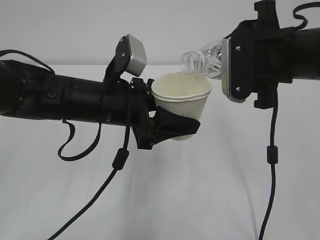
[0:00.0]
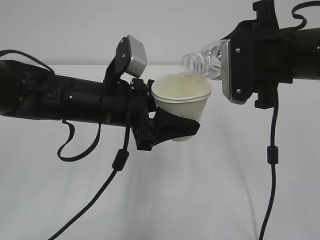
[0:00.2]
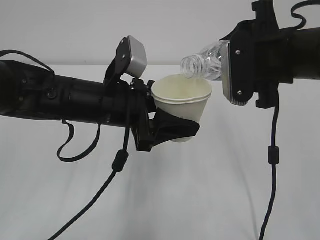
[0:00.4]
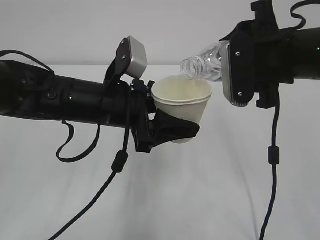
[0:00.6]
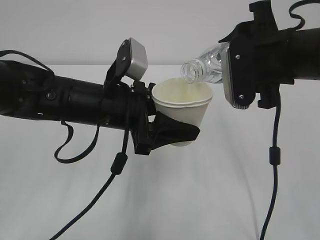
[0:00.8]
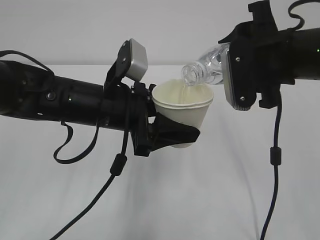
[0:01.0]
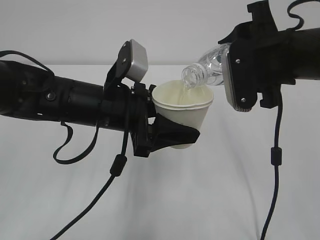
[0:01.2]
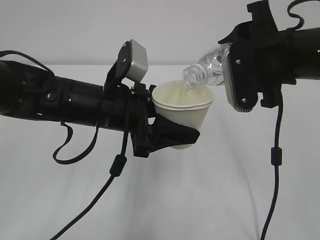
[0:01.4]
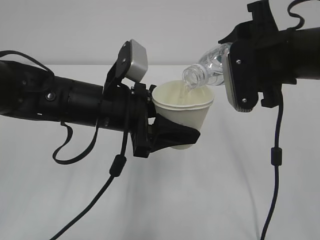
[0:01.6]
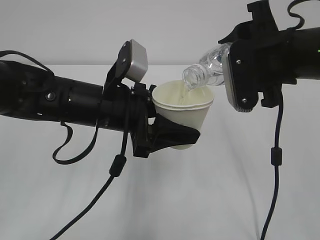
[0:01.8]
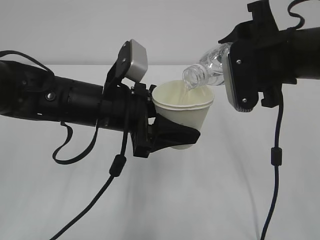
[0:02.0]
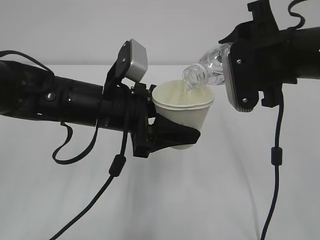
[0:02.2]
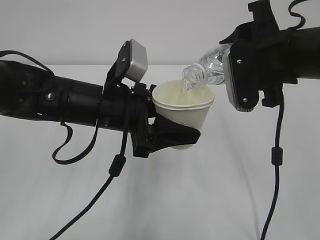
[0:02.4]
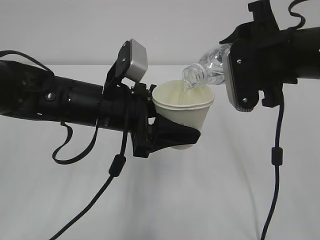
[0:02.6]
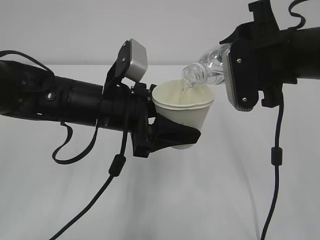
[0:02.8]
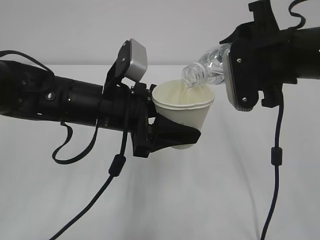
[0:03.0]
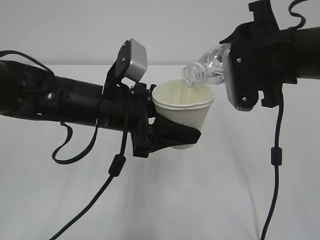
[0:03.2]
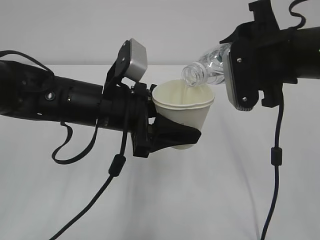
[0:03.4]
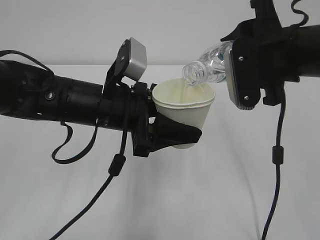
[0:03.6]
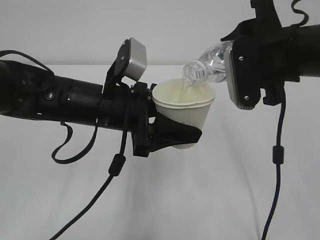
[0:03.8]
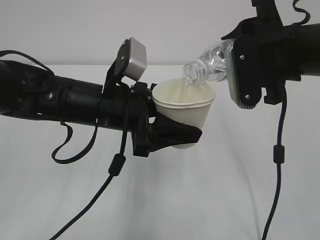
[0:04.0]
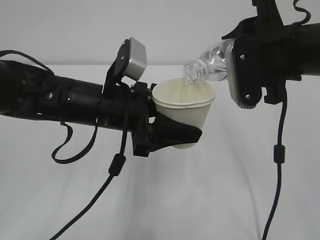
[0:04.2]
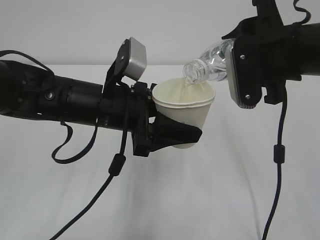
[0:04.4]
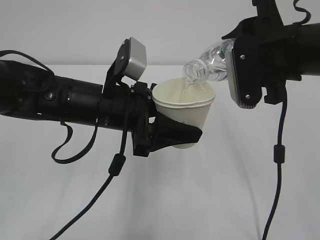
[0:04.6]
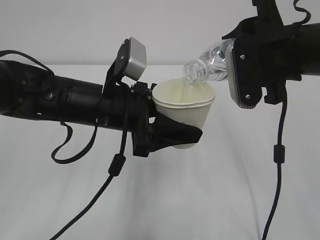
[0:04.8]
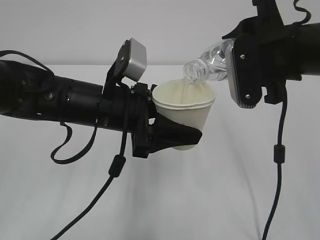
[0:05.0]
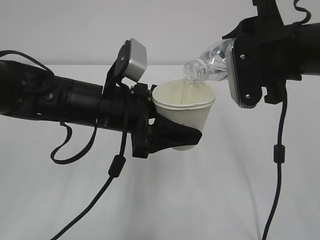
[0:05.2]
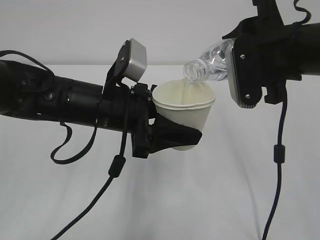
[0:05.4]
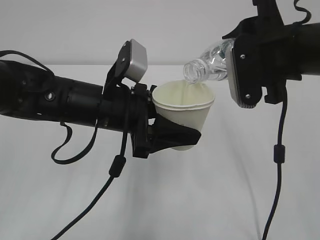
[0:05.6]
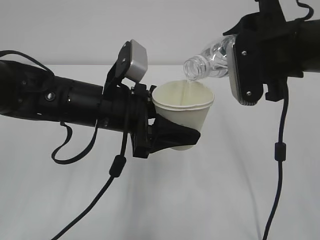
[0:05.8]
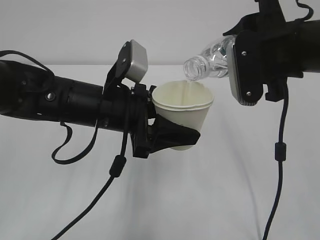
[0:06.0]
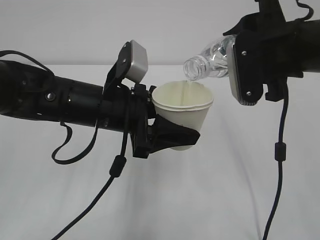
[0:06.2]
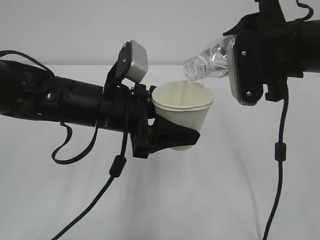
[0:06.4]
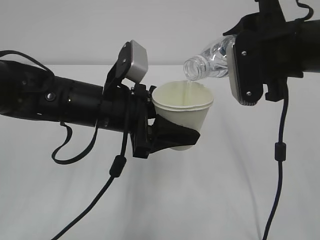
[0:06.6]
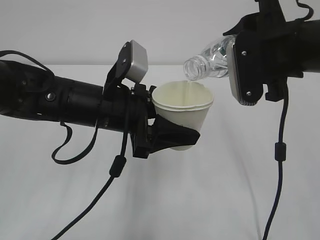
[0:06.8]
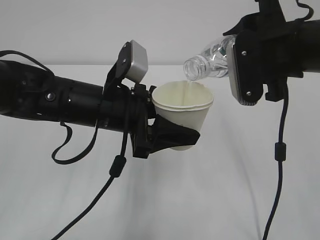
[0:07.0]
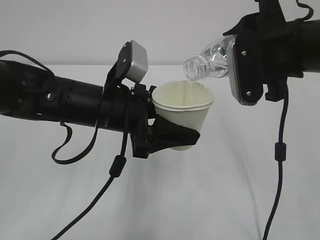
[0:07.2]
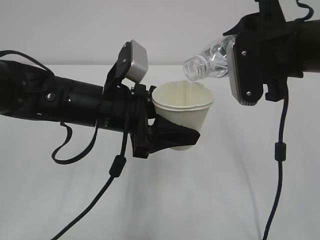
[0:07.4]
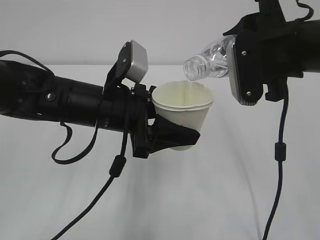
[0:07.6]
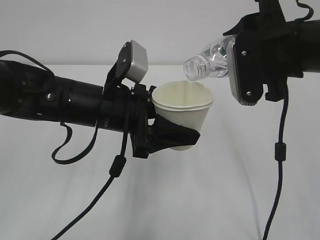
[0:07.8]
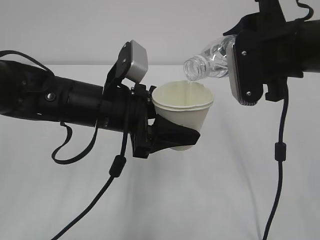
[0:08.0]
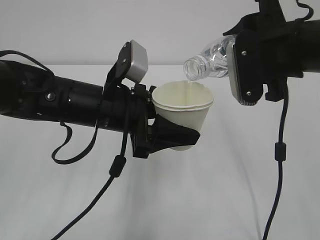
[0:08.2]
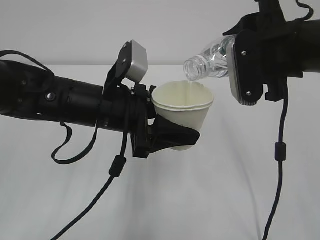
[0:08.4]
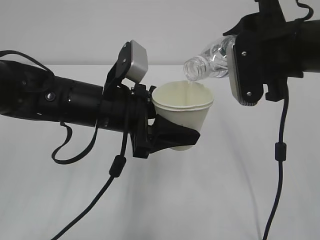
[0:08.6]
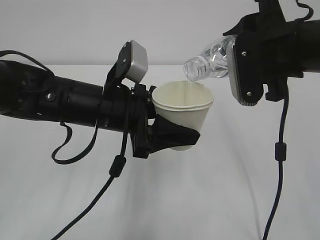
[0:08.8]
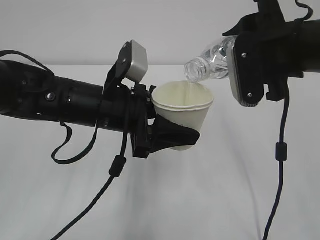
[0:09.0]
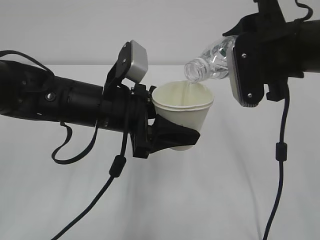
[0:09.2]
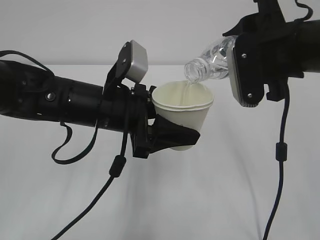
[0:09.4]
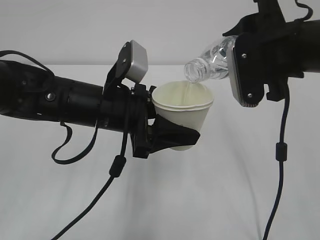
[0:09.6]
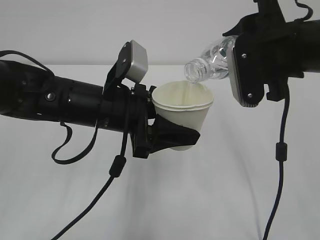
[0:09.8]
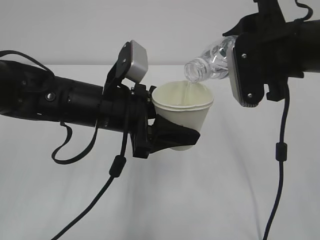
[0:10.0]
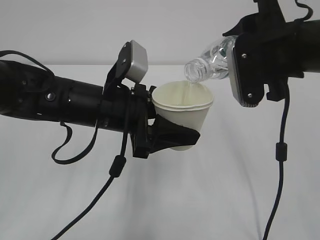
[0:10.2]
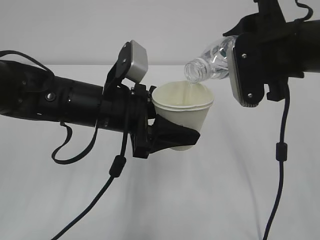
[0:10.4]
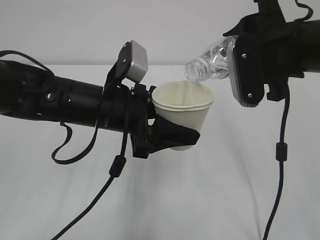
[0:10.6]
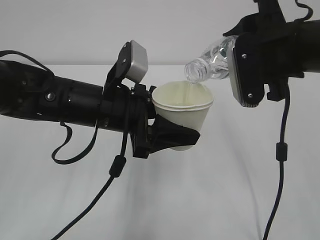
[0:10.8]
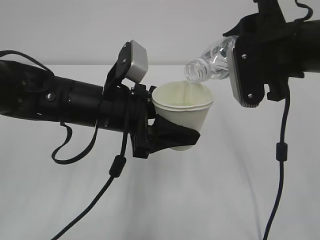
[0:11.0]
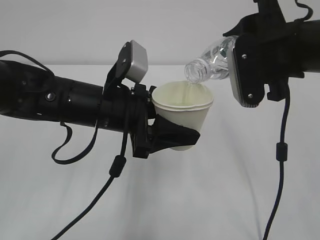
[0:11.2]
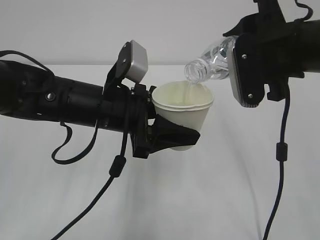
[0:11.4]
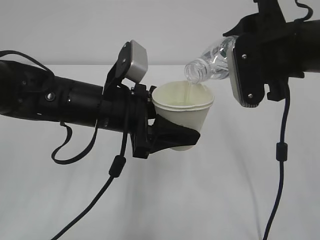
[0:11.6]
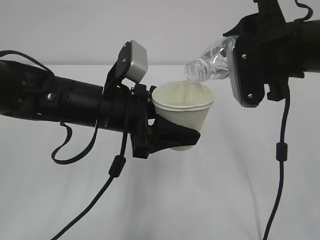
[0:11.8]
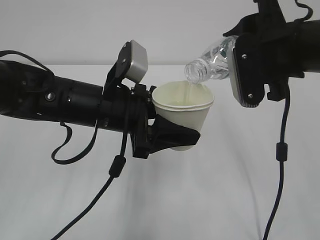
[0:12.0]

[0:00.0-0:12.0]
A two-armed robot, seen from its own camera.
0:00.0 to 0:01.6: The grippers make only small movements.
0:01.6 to 0:12.0: The two grippers keep their place.

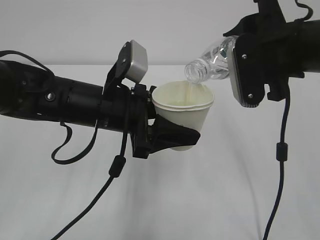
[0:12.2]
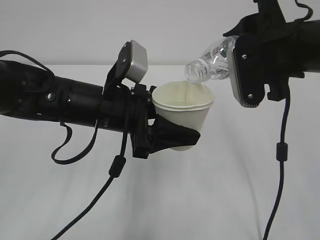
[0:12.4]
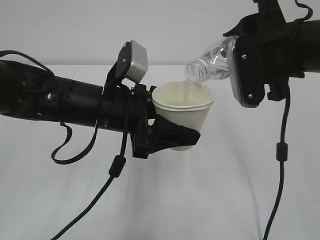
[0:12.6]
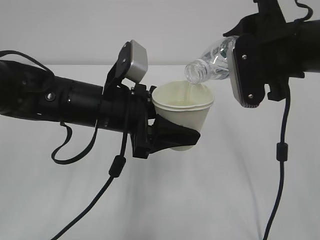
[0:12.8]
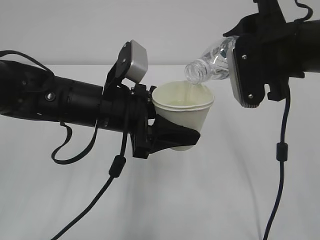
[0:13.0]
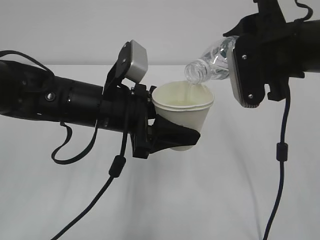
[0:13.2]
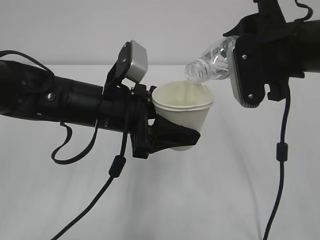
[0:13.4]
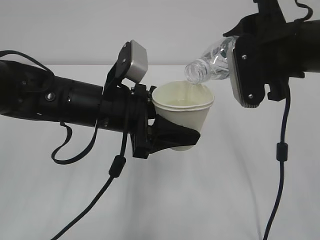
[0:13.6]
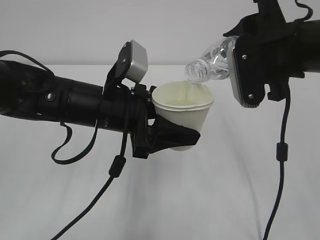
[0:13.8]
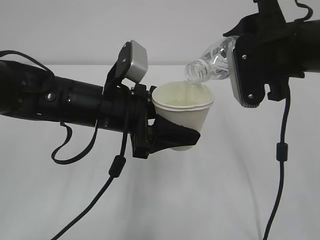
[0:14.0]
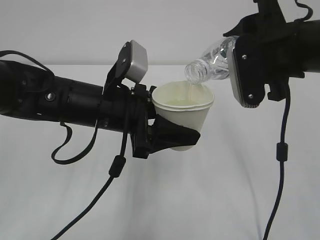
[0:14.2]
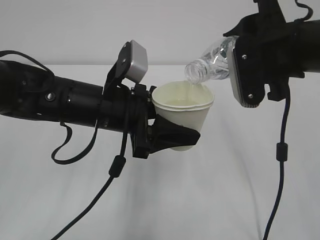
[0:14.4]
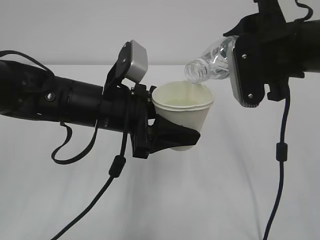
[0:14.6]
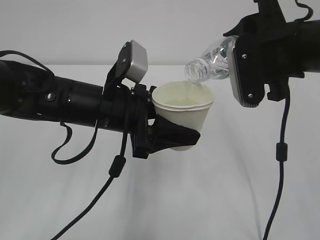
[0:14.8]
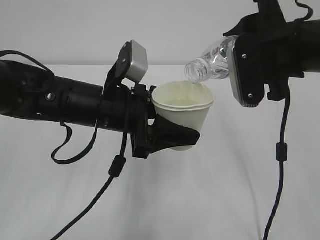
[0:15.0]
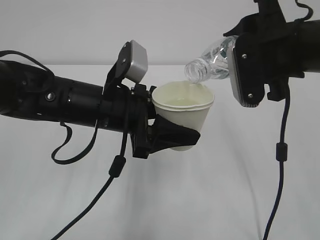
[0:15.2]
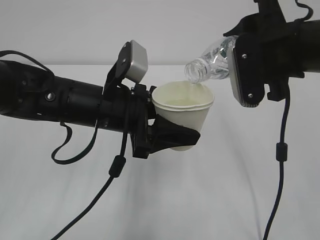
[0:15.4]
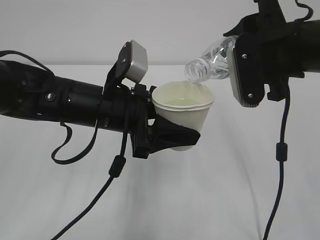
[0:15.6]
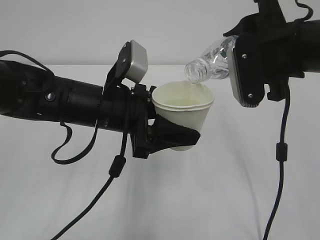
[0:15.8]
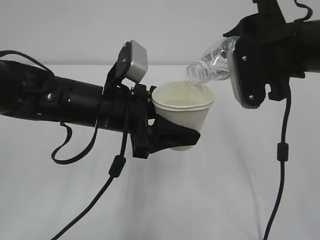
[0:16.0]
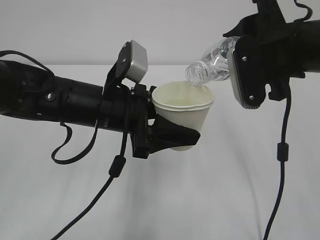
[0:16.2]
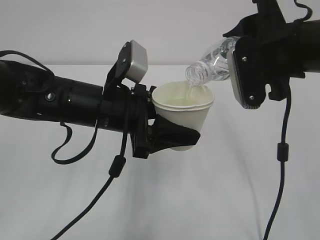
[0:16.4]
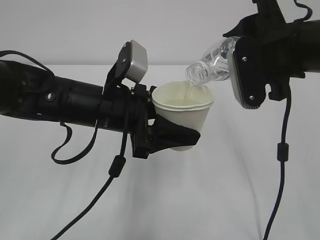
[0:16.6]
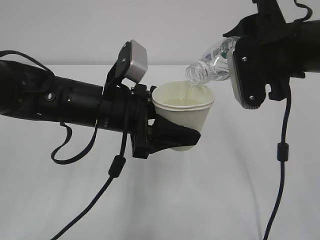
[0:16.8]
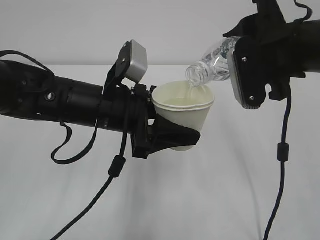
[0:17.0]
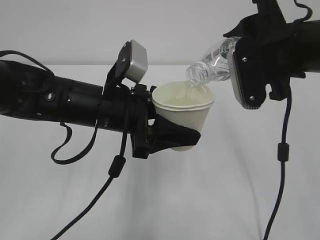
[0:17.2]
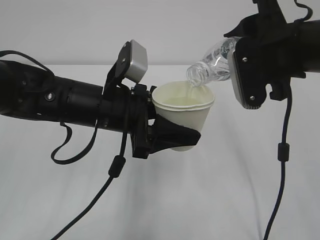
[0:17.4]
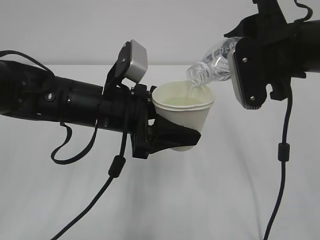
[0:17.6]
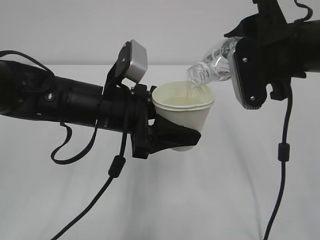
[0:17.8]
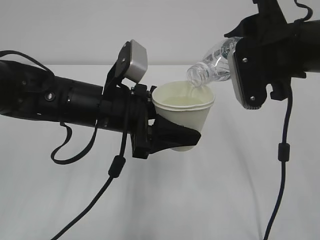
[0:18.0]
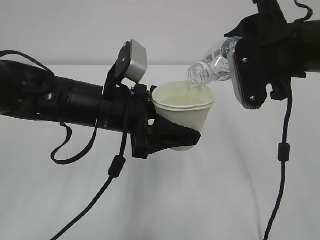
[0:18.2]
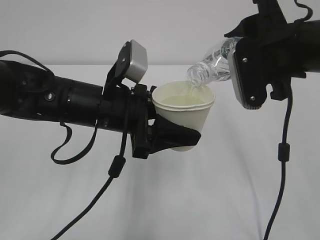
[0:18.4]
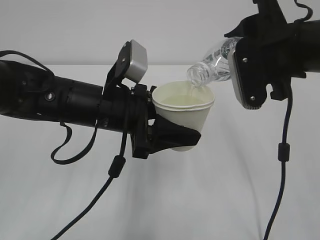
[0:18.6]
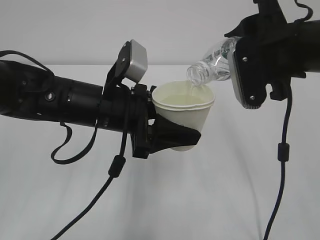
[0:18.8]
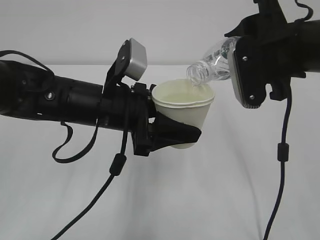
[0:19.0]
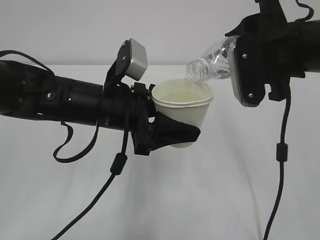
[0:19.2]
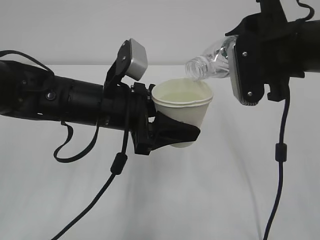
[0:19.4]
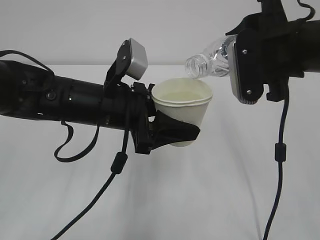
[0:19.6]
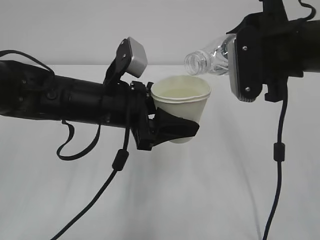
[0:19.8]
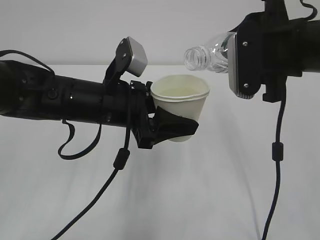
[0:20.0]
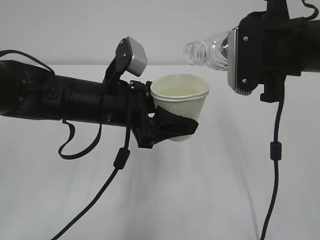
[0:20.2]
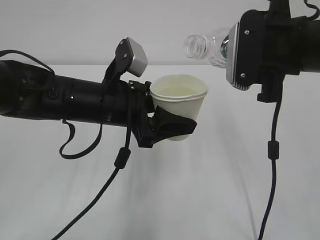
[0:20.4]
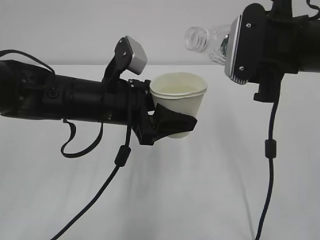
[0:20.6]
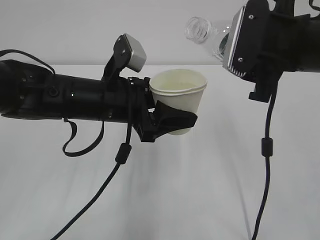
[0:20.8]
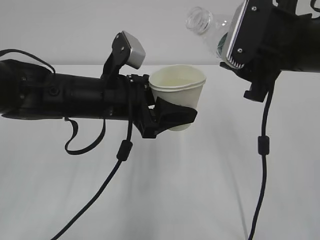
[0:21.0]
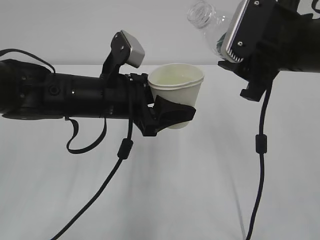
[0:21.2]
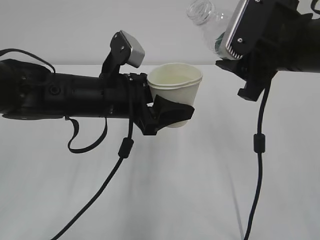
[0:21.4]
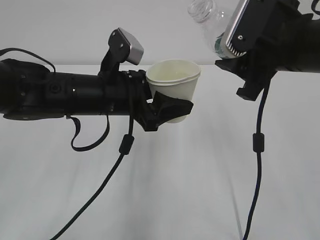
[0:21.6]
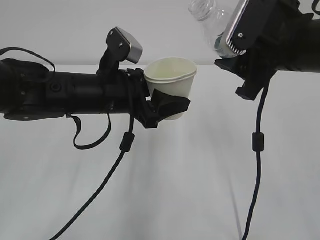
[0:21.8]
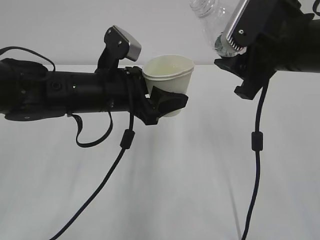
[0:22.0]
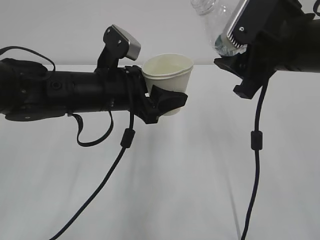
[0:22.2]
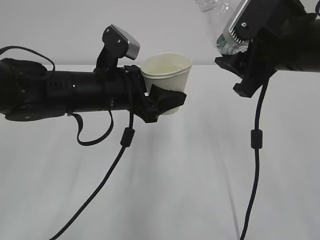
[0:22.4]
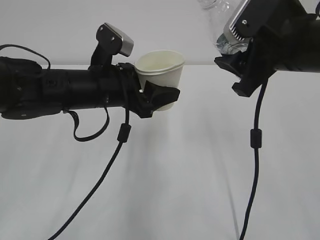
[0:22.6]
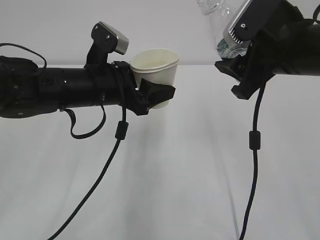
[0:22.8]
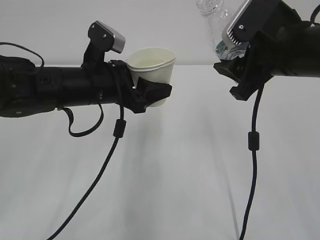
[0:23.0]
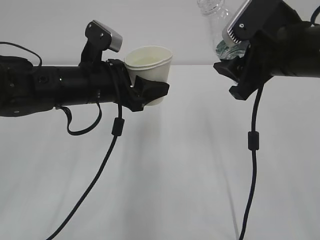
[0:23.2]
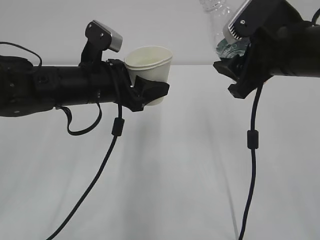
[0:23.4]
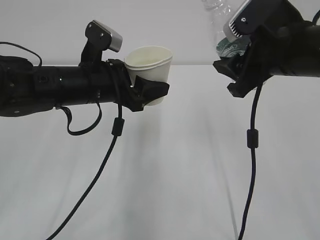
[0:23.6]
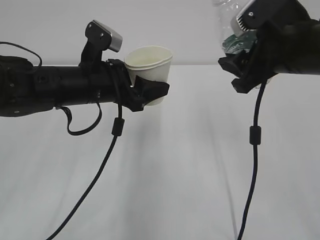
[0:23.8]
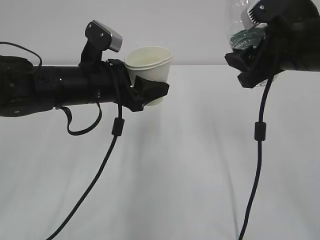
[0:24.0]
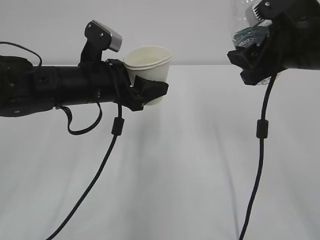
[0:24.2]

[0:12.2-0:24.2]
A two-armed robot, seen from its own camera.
0:12.2 to 0:18.2: Neither gripper changes place.
0:18.2 to 0:19.8: The grippers make only small movements.
0:21.2 to 0:22.6: The grippers stay close to where they were, moving slightly.
0:22.6 to 0:24.2: The grippers make only small movements.
